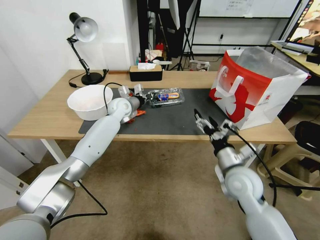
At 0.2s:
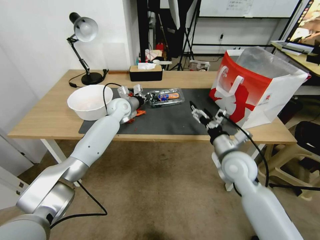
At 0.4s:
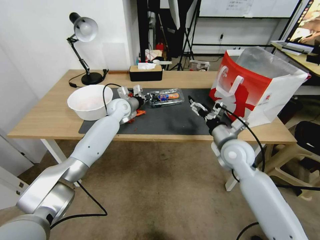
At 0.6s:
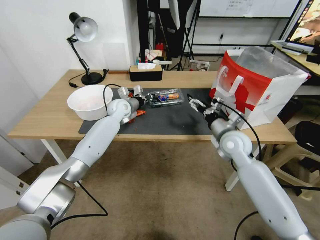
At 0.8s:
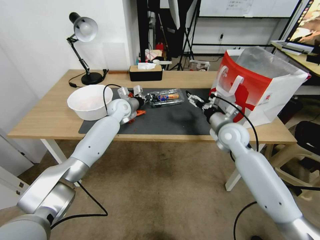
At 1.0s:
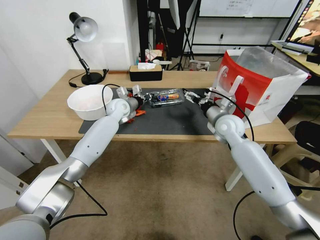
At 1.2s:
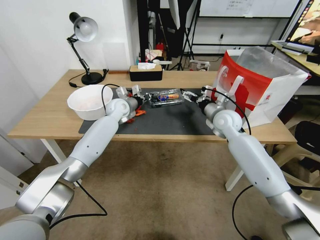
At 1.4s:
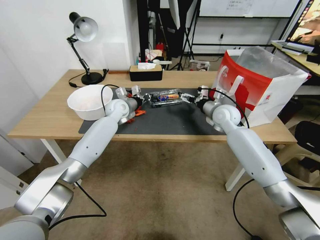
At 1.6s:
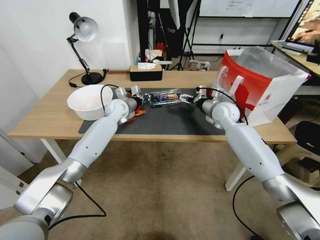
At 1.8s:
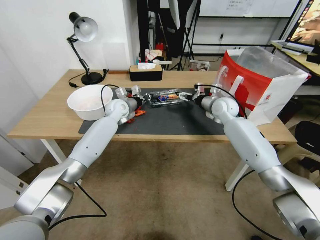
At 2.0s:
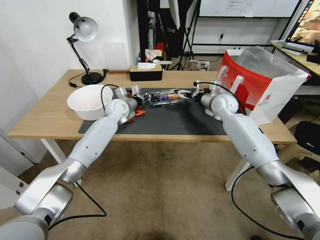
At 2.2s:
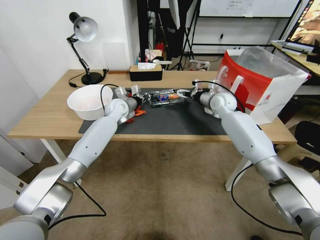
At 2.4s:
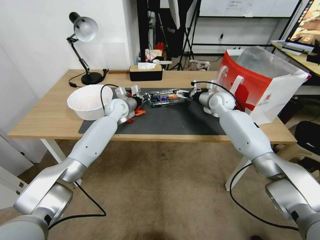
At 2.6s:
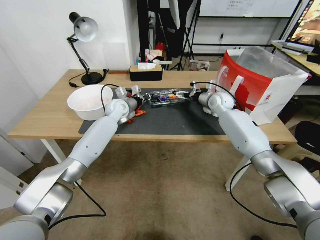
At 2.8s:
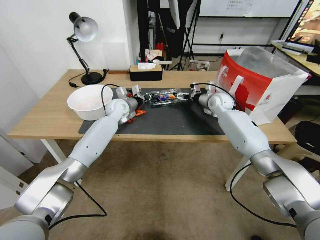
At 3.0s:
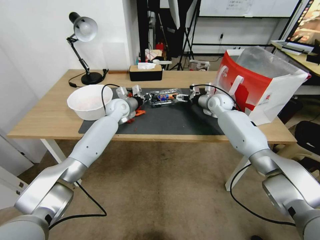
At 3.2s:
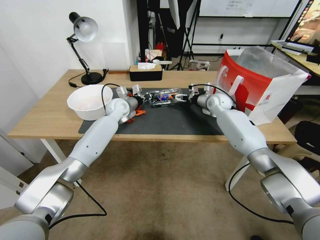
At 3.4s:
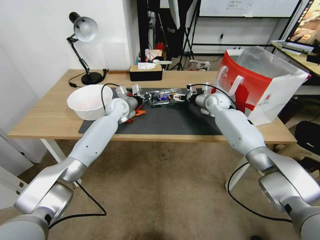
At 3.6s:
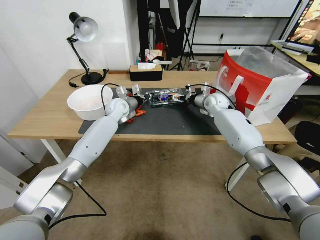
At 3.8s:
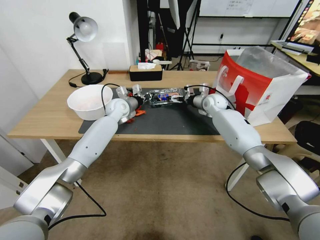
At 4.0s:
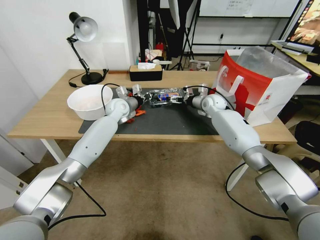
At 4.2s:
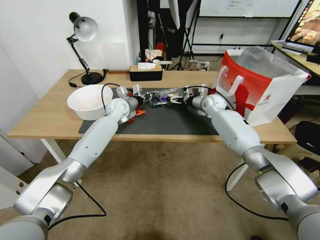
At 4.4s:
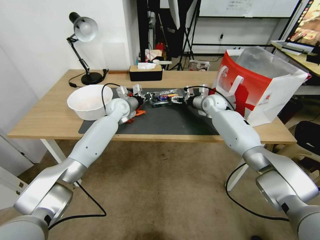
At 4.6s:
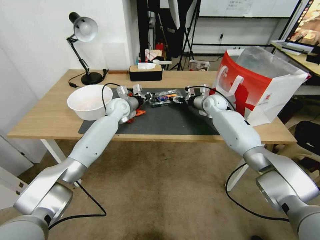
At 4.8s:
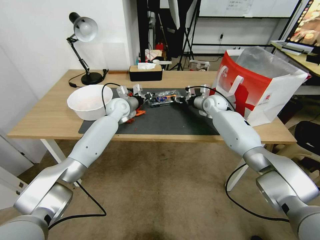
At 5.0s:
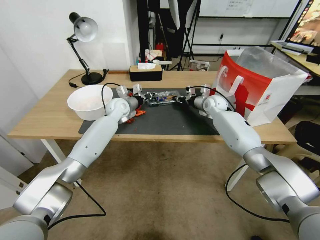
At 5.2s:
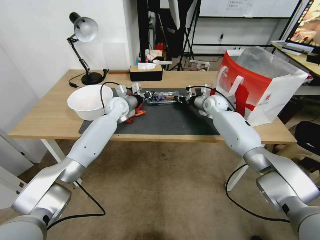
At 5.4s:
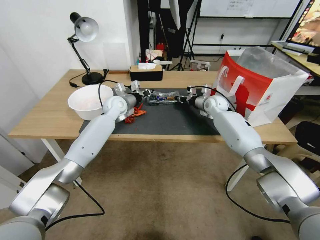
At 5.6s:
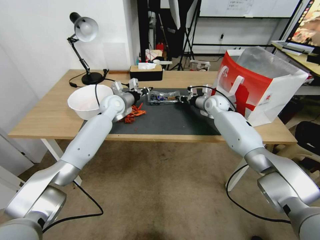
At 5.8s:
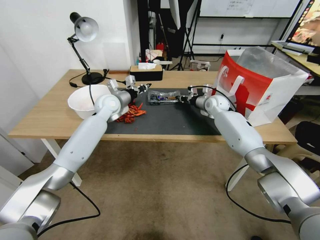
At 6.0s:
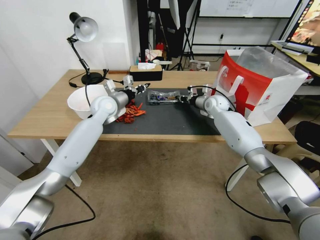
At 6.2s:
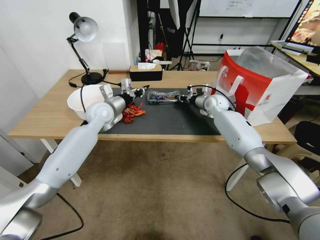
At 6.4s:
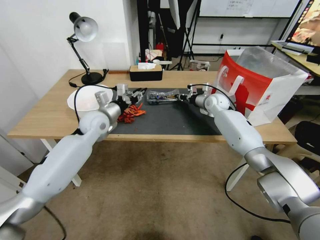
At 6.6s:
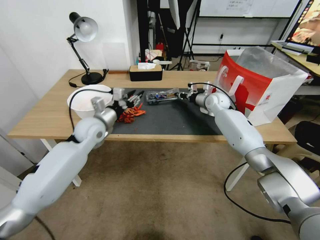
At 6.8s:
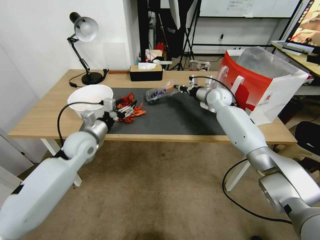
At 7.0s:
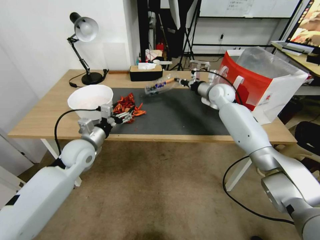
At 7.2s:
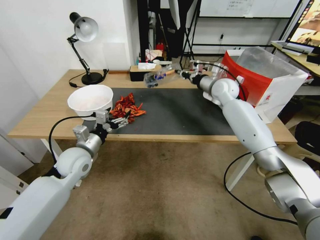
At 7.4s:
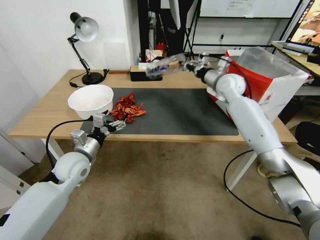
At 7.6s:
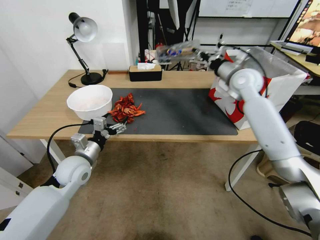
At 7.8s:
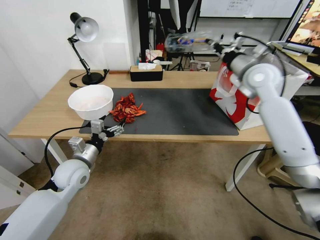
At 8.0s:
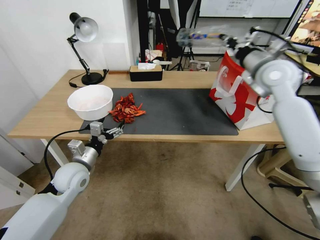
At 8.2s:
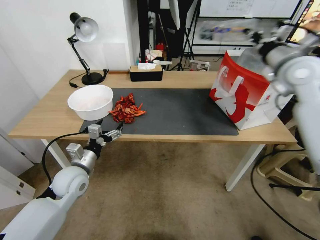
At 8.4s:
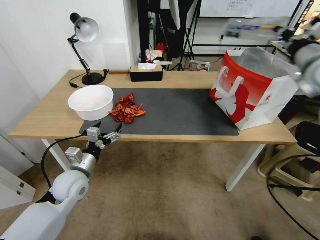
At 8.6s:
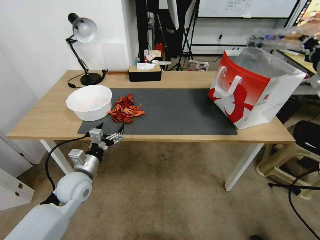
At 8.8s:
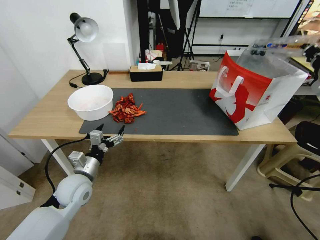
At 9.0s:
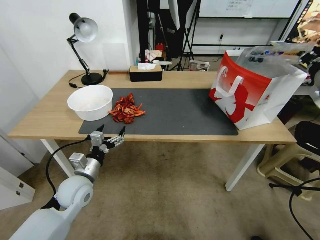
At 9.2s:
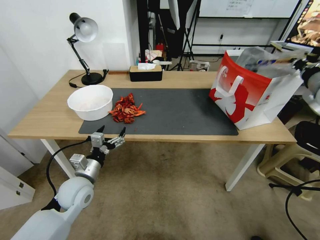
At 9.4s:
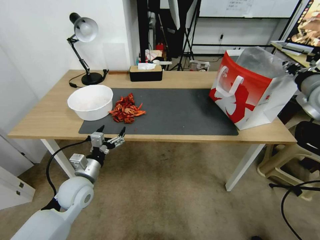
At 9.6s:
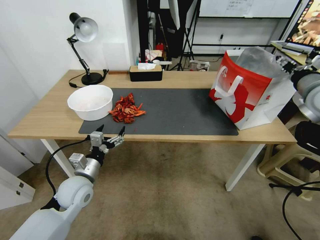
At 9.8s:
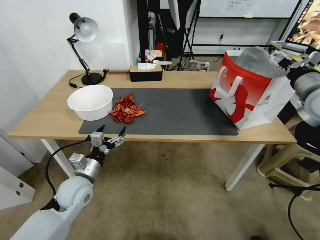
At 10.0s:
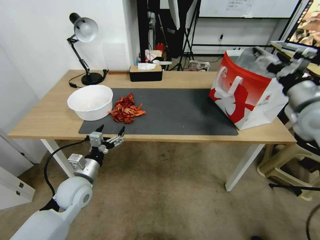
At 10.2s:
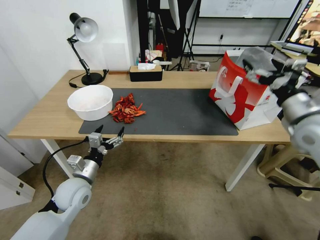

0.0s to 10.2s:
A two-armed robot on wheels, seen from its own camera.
Task of the whole recording: Close the takeout container lid, then place the container into the takeout bag.
0.0s to 1.4s: The right gripper heads forward, covering approximately 25 cm.
1.4s to 3.0s: The right gripper shifts approximately 10 cm forward.
3.0s to 4.4s: The grippers make only small movements.
4.4s to 5.8s: The right gripper closes up.
5.8s to 7.2s: The left gripper goes roughly 20 cm backward, and opens up; the right gripper travels upward by about 10 cm.
7.2s to 8.8s: The left gripper moves backward and downward, roughly 10 cm. Meanwhile the right gripper travels backward, to the right and upward by roughly 30 cm.
8.8s to 10.2s: The right gripper goes roughly 15 cm downward, backward and to the left, and opens its fingers.

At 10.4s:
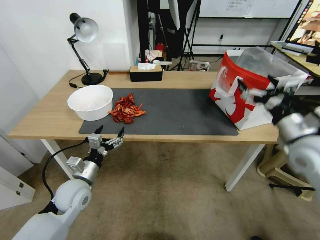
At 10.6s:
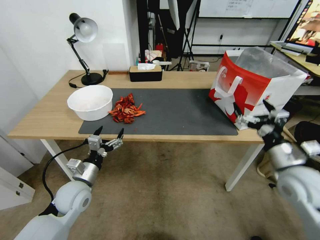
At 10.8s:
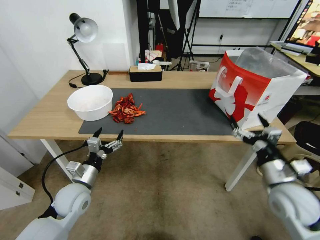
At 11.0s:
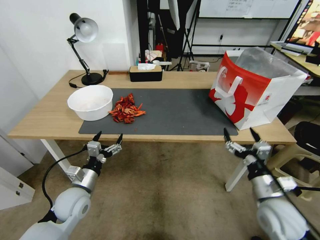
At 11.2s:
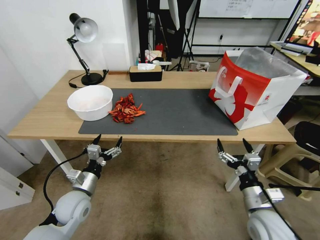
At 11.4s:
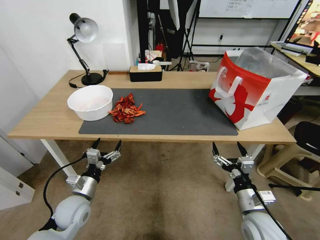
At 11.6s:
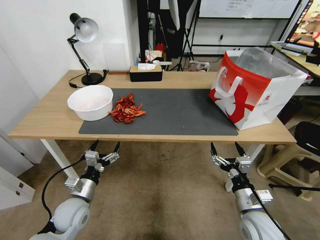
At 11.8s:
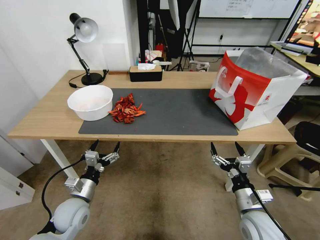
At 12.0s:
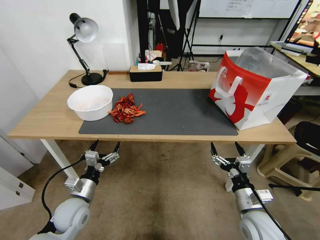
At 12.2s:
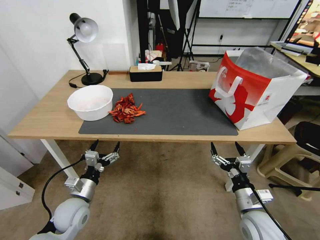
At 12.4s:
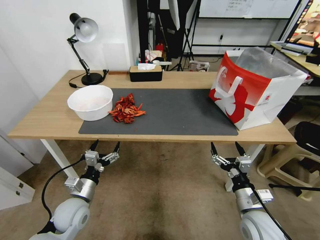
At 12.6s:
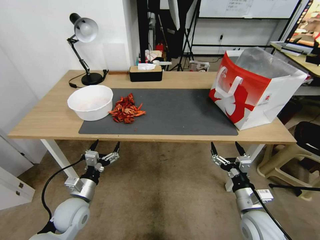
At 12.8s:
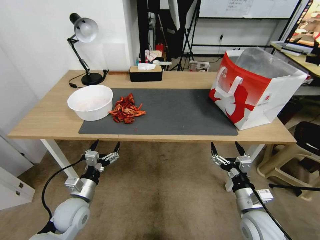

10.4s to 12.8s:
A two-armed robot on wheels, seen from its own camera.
Task of the whole recording: Close the takeout container lid, then place the container into the takeout bag.
10.4s to 11.6s: The right gripper moves downward, backward and to the left, about 25 cm. Meanwhile the left gripper travels downward by approximately 5 cm.
11.6s to 12.8s: Both grippers stay put.
